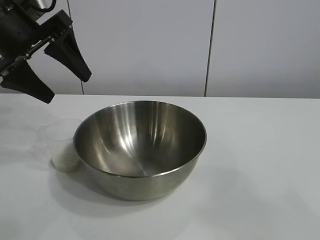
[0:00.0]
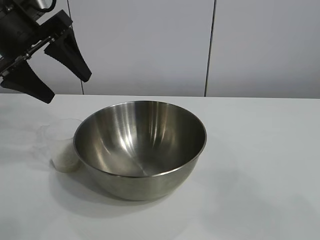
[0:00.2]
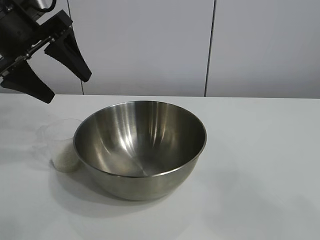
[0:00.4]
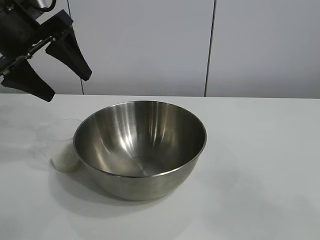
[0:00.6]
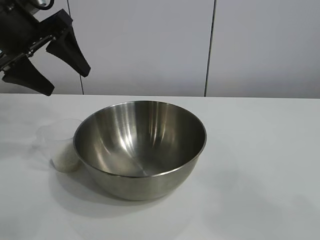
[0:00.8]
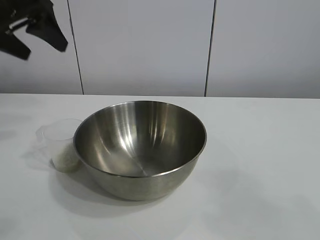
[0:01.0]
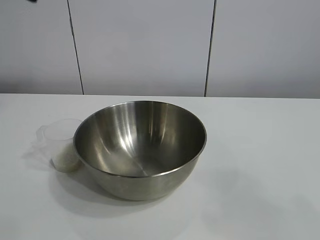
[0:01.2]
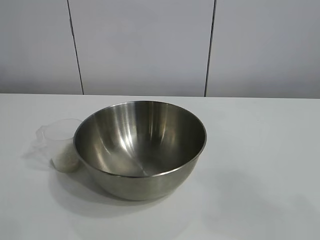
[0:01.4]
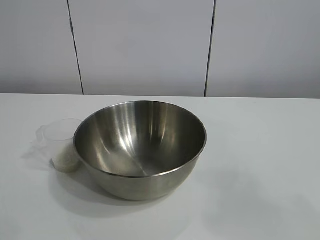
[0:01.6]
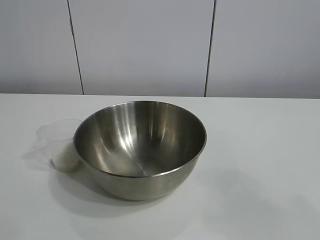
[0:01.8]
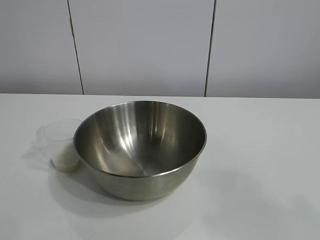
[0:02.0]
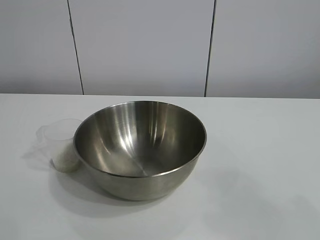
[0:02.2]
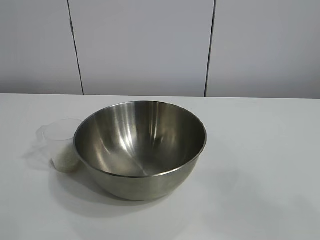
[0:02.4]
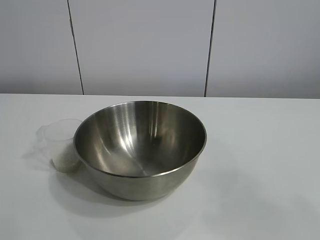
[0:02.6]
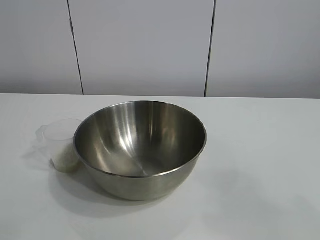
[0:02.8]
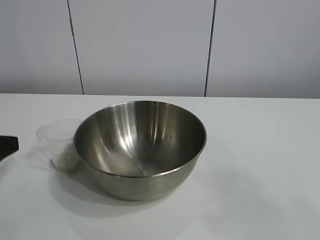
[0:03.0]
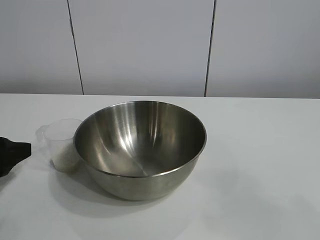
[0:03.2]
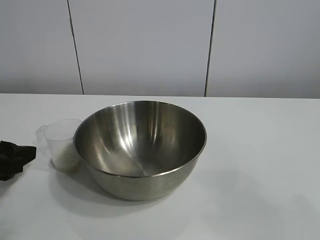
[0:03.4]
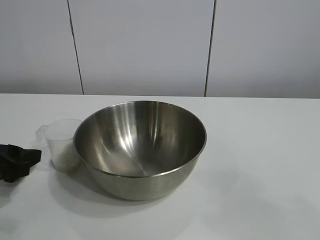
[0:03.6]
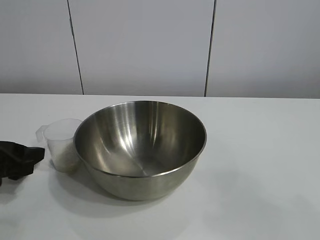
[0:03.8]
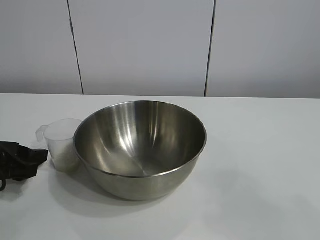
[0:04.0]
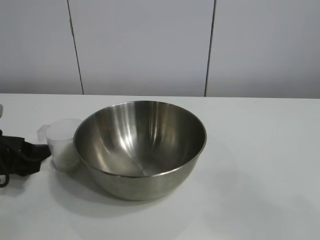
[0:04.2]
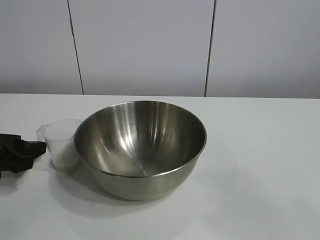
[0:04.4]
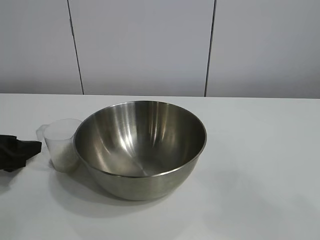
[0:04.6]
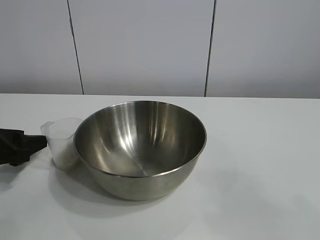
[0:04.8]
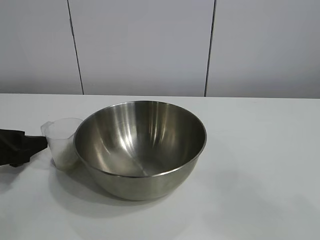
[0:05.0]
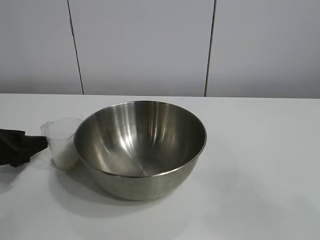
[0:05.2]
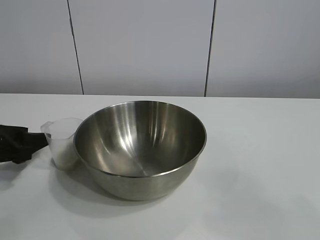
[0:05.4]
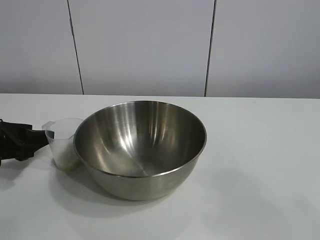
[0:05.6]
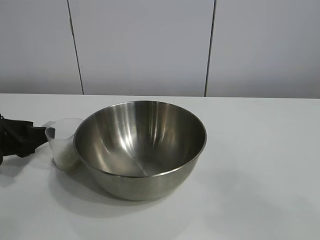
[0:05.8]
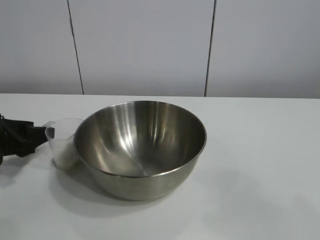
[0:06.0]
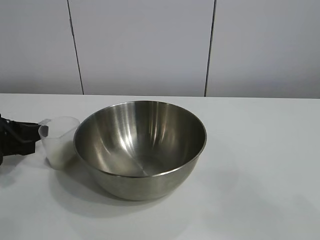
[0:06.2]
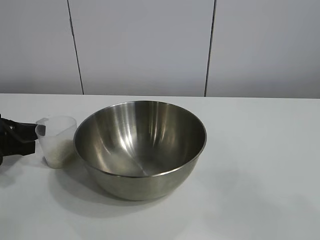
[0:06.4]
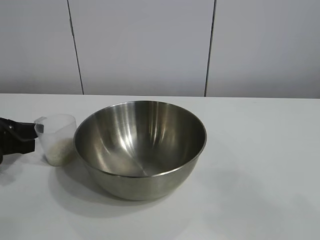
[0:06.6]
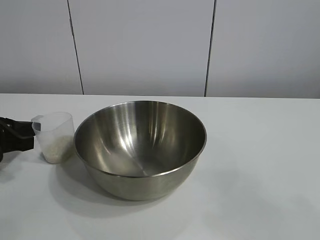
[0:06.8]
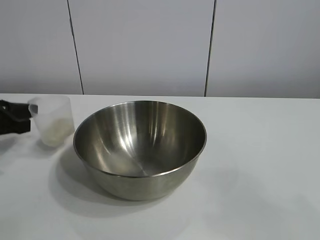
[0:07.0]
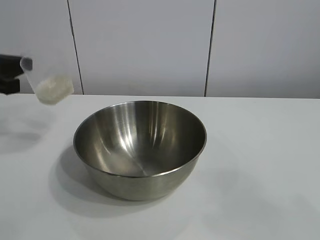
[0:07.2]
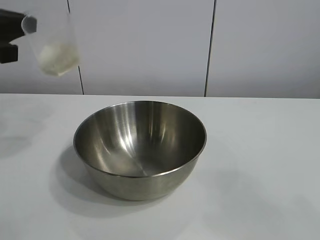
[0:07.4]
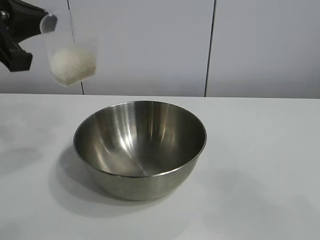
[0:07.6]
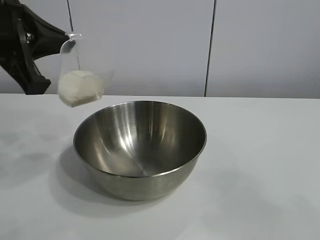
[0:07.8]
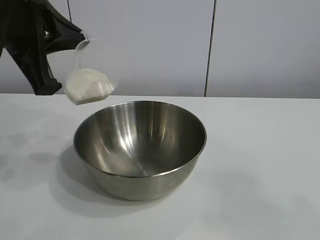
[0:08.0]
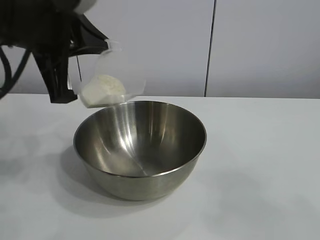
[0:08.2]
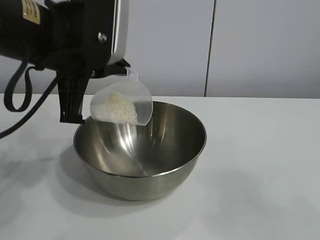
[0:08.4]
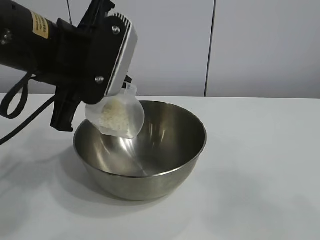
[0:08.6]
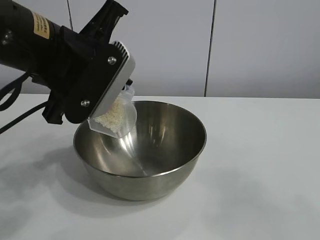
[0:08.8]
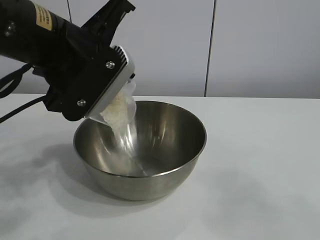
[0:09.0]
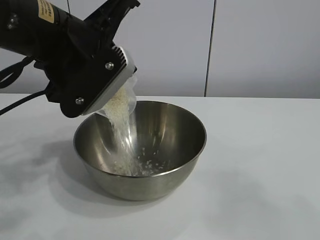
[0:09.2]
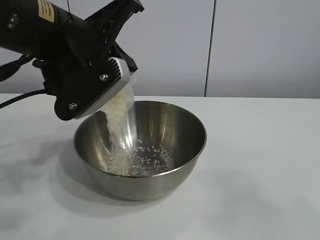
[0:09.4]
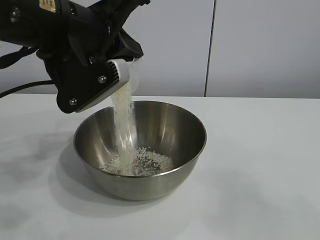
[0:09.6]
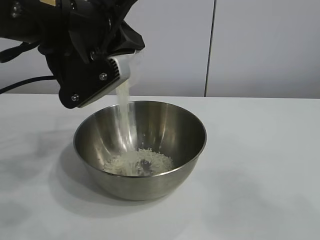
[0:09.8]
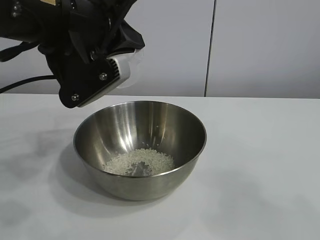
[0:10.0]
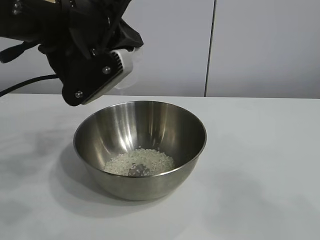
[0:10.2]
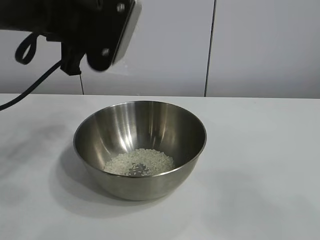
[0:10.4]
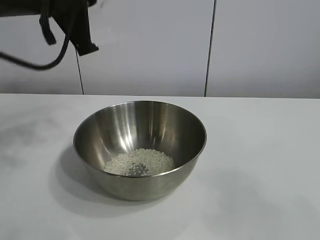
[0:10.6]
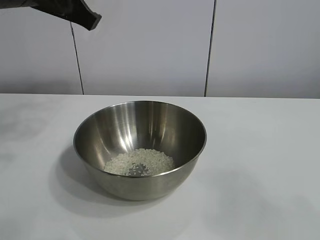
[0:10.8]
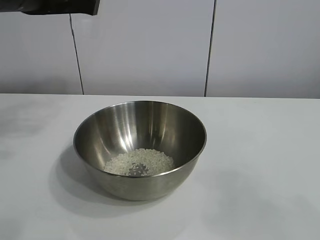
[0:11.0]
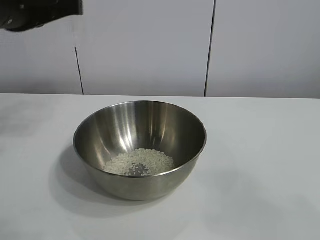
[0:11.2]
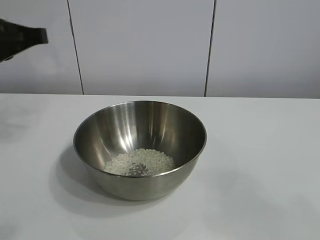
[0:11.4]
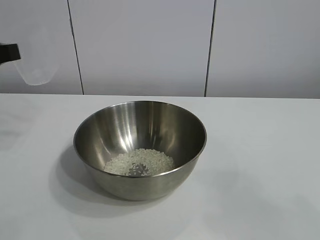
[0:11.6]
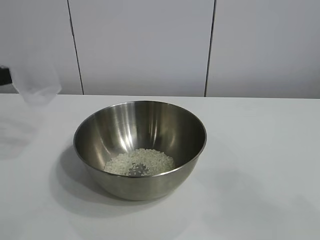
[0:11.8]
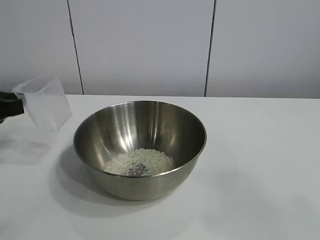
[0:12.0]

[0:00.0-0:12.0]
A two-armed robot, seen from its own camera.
Task of the whole recording: the right gripper grasp the rice container and place it in the center of the table, the left gripper grasp the rice scoop and pour the rice into the rice container.
Step, 0:00.0 to 0:06.4: Grasp the cup with rice in it with left gripper.
Step, 0:06.6 to 0:09.8: Pour the rice from the cup into the bowl with the left gripper.

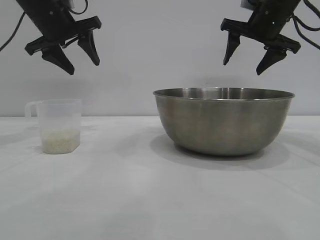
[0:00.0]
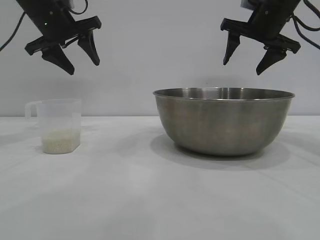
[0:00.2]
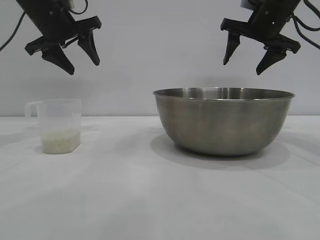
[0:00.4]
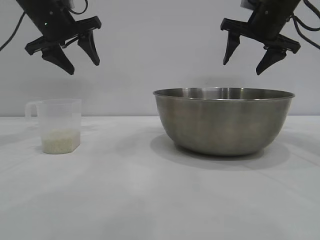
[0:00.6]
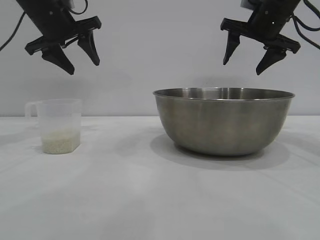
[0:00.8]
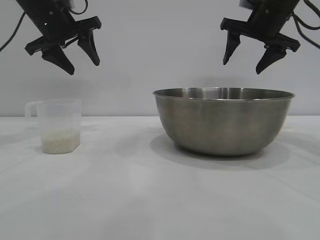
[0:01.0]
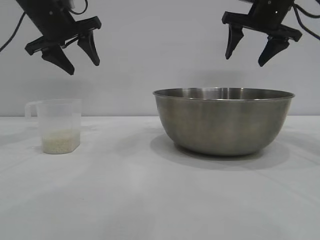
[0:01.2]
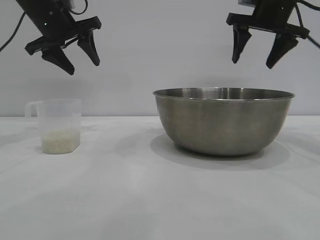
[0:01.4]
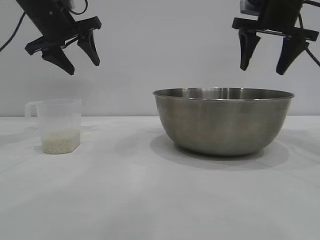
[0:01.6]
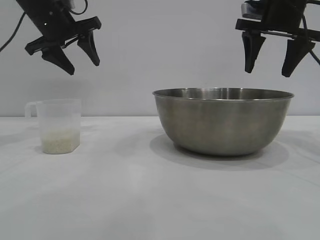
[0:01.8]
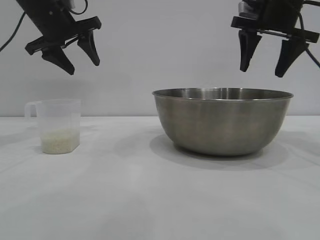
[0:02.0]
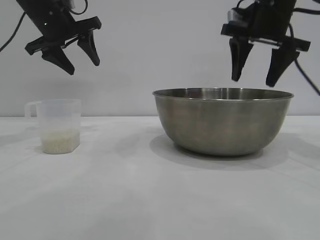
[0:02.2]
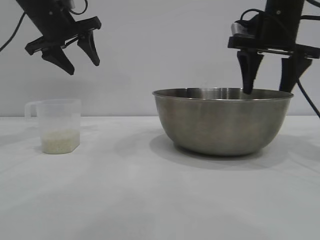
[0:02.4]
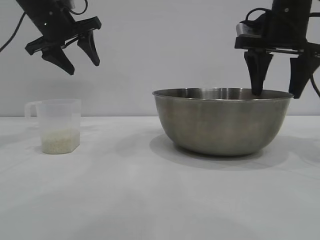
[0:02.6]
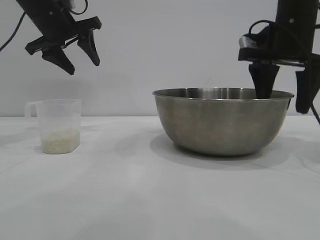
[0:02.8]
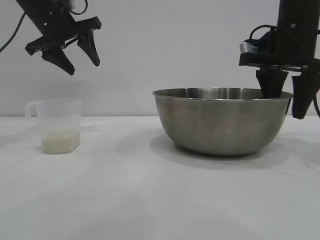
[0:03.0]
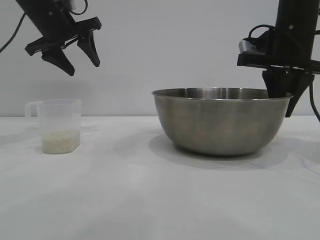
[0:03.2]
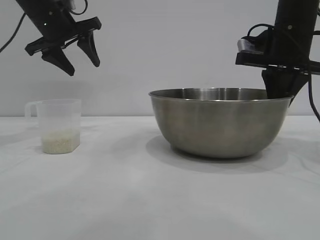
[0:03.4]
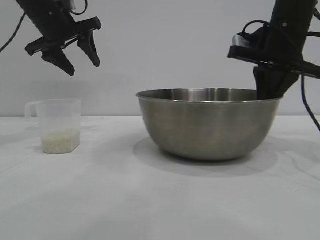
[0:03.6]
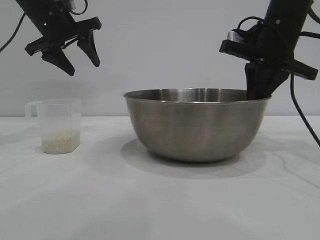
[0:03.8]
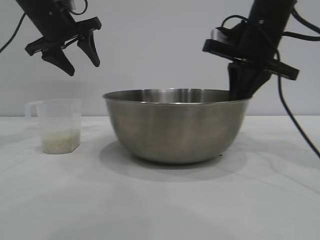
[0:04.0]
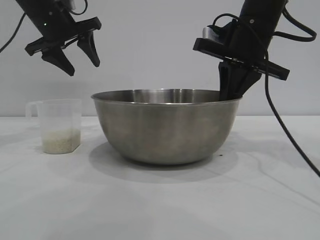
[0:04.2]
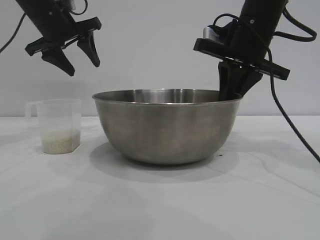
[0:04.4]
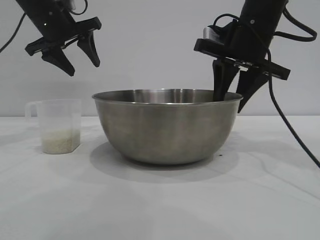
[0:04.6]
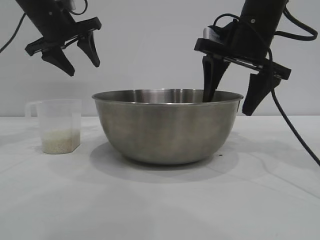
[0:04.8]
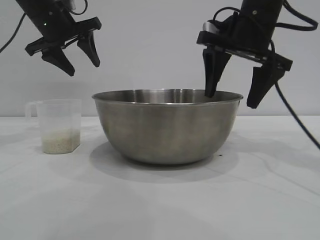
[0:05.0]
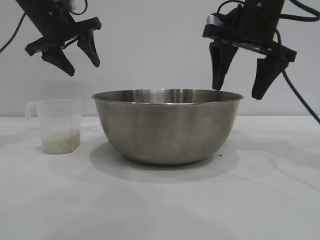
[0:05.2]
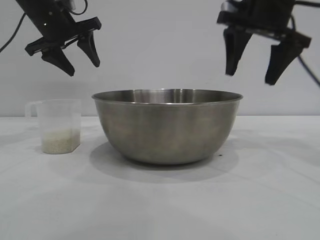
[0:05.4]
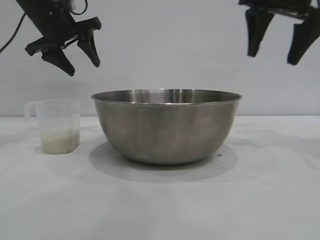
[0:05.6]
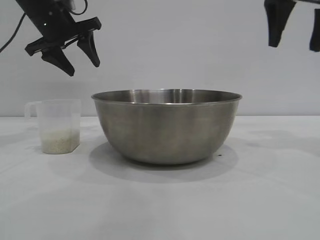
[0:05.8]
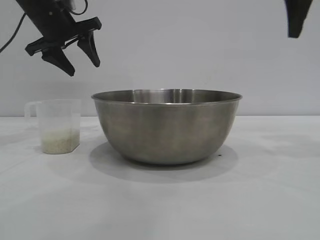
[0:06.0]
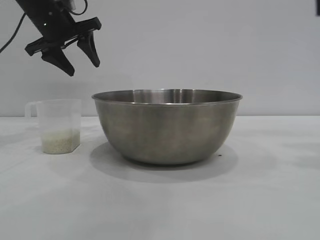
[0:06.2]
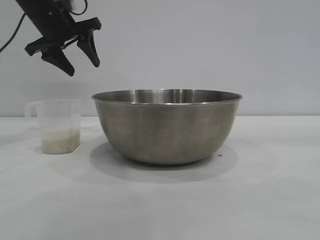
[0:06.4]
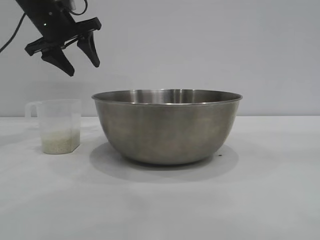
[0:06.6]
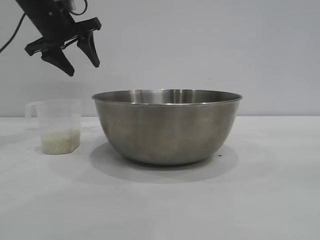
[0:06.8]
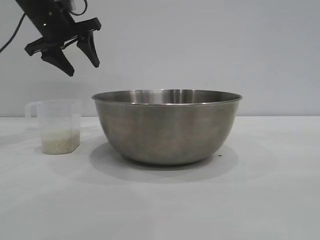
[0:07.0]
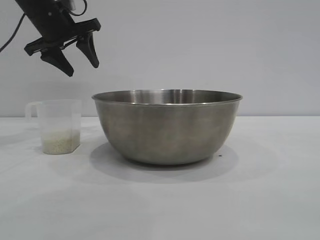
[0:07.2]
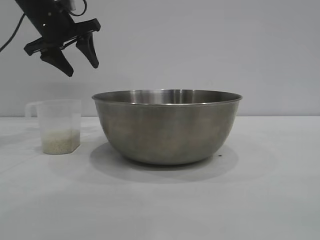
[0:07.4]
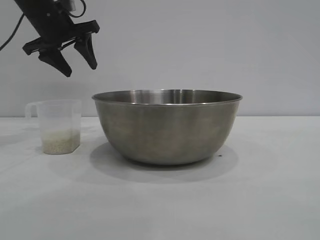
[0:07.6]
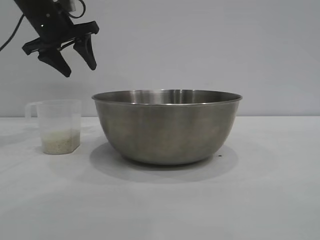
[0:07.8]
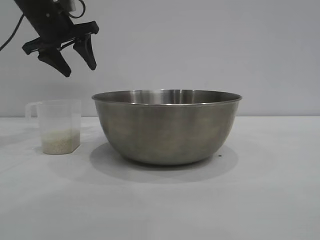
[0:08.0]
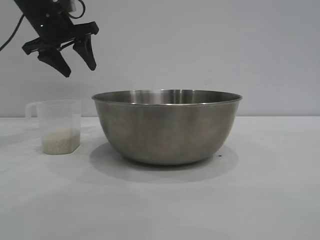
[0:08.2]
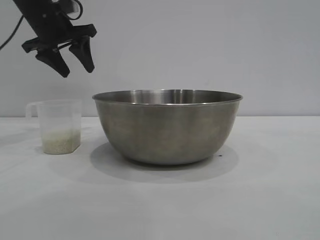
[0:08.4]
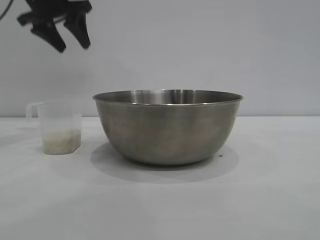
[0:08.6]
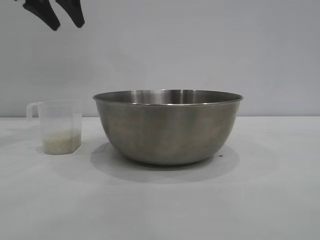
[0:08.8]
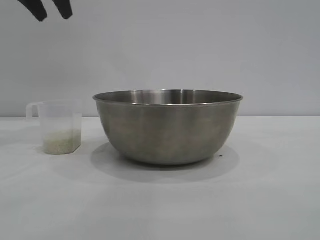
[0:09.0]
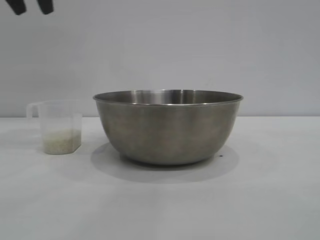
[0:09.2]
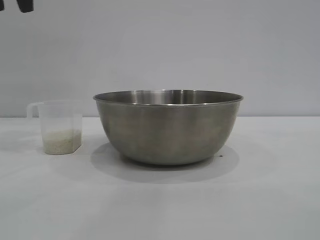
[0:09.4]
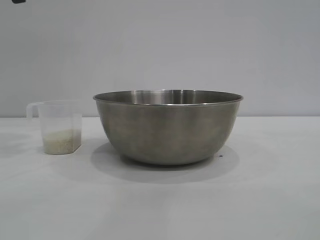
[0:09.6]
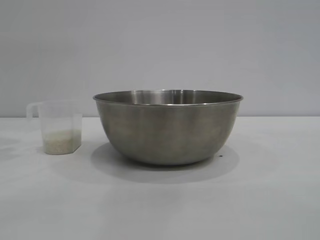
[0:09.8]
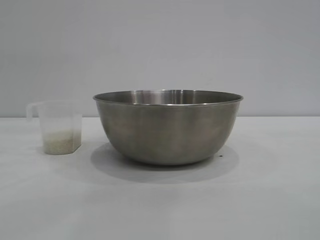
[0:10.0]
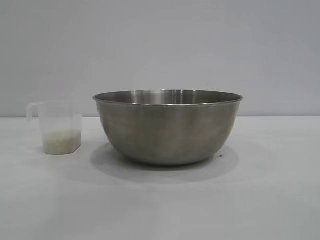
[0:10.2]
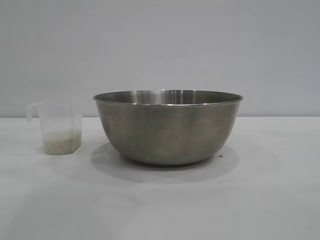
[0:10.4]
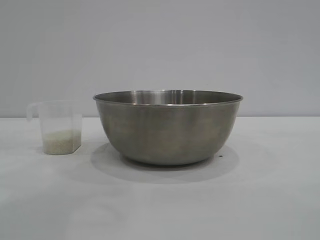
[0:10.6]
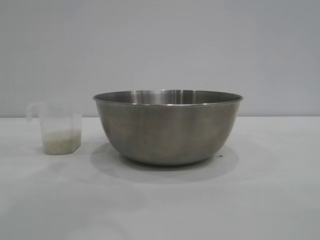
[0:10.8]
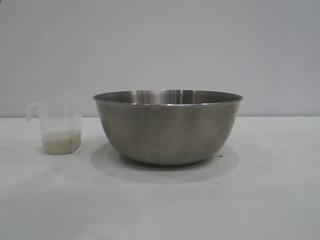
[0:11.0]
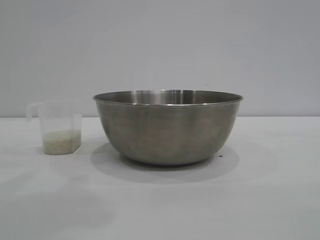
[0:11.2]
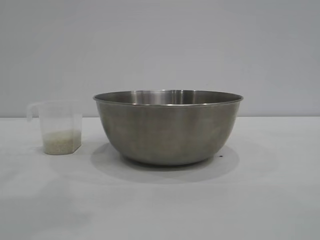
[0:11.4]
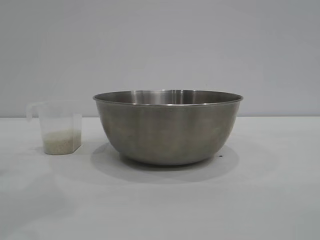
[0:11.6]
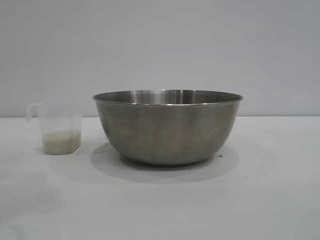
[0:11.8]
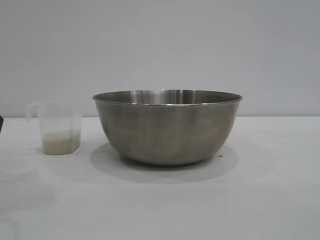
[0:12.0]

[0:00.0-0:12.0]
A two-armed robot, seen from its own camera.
Task of the whole recording: the right gripper grasp the rice container and place it in the center of the table, the left gripper grasp the rice scoop and pour the rice into the rice container.
Step, 0:00.0 to 0:05.0: Move the bowl to the center of view with the right gripper.
